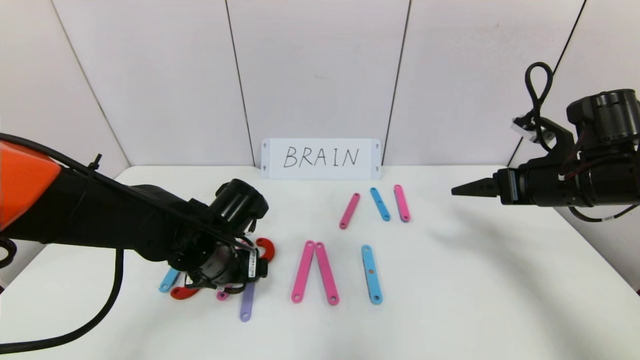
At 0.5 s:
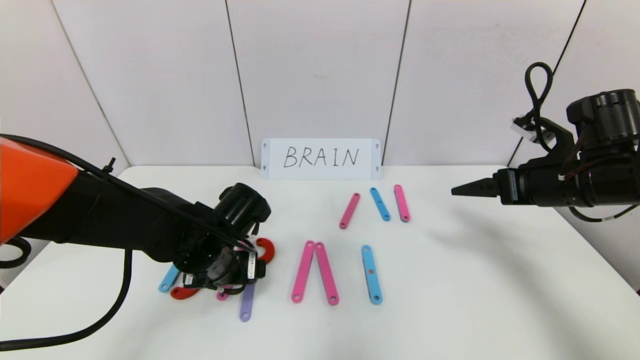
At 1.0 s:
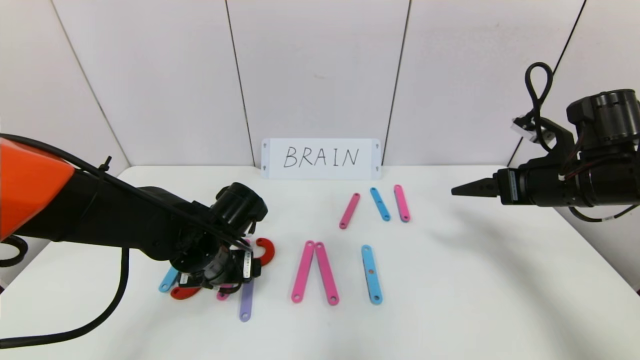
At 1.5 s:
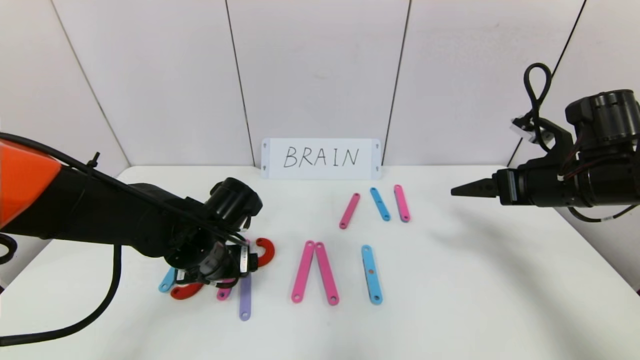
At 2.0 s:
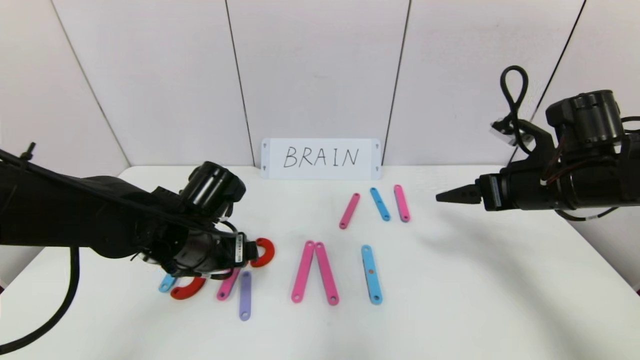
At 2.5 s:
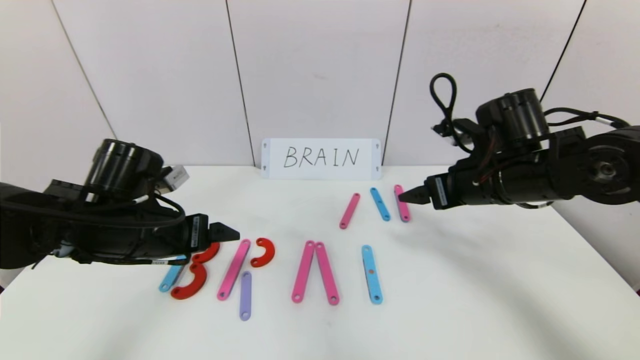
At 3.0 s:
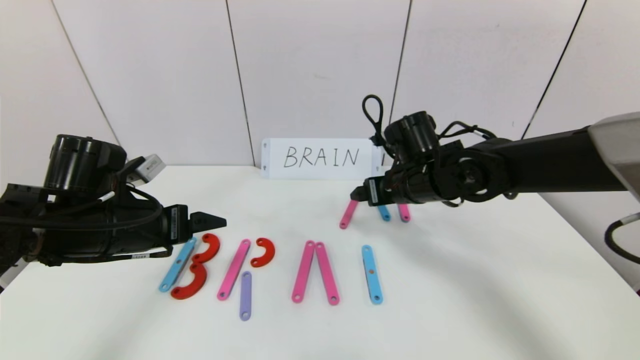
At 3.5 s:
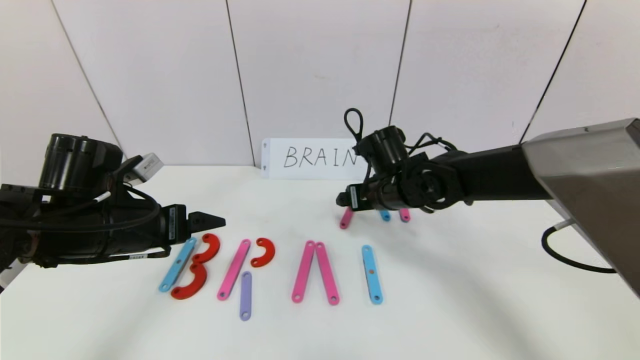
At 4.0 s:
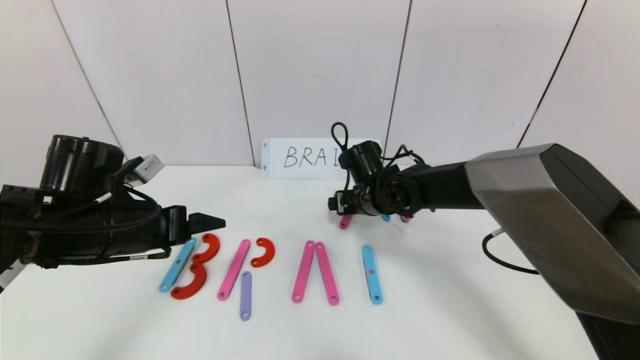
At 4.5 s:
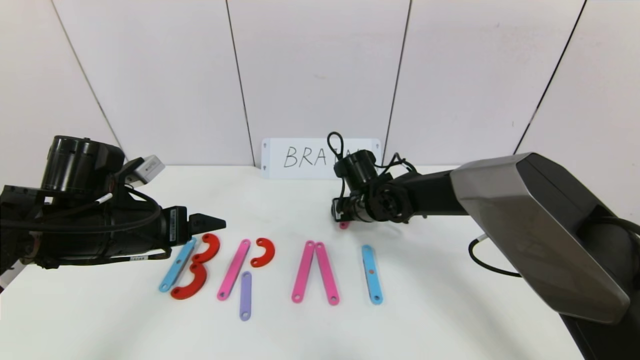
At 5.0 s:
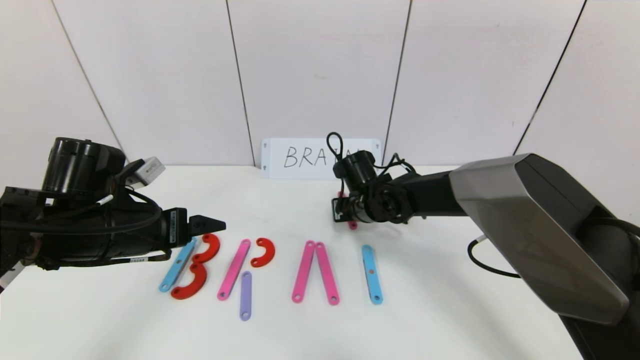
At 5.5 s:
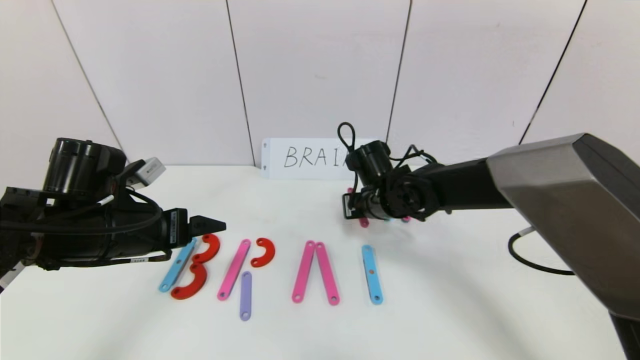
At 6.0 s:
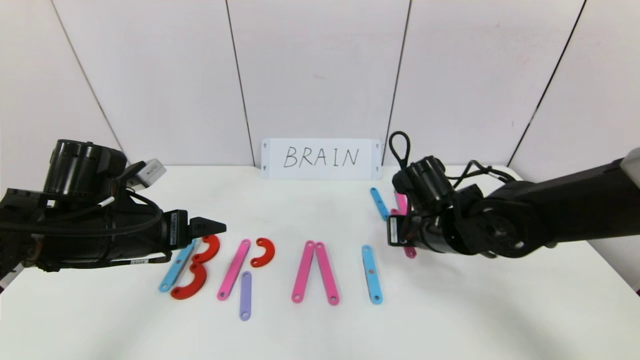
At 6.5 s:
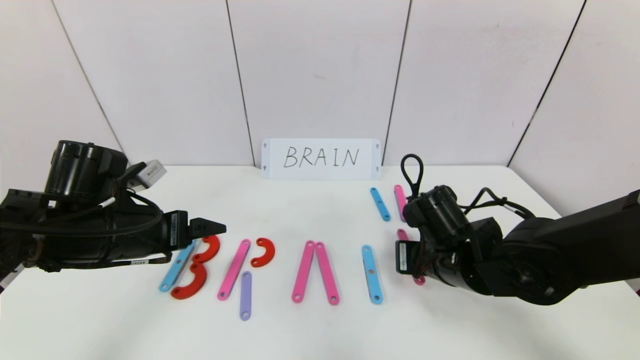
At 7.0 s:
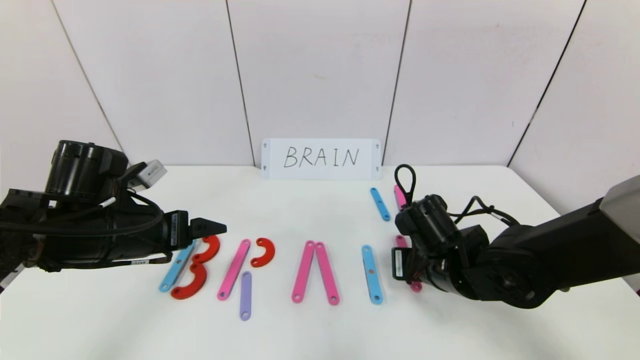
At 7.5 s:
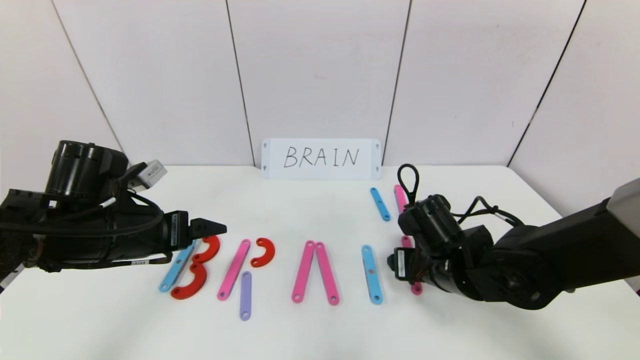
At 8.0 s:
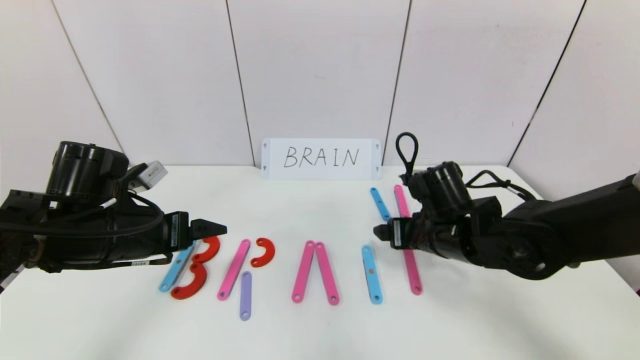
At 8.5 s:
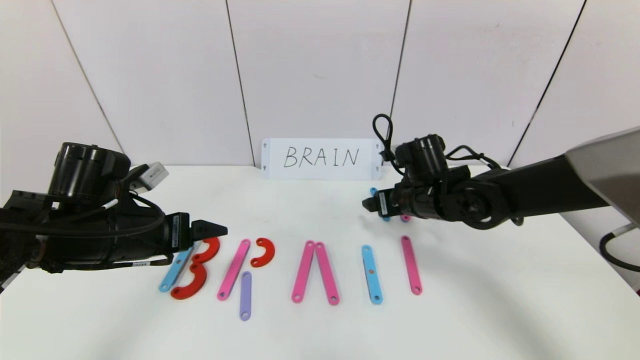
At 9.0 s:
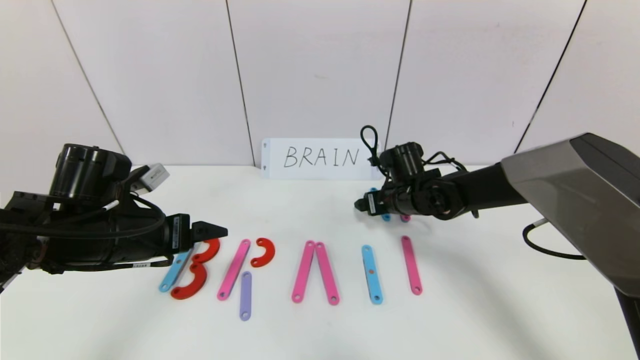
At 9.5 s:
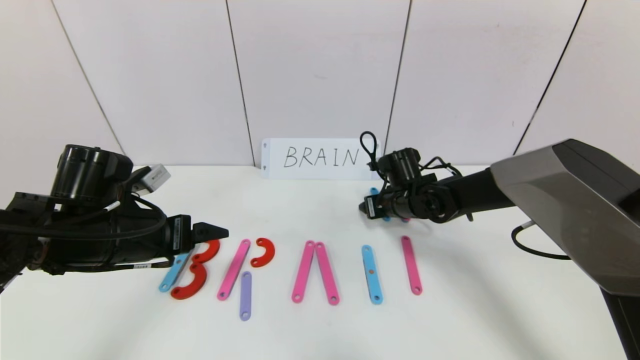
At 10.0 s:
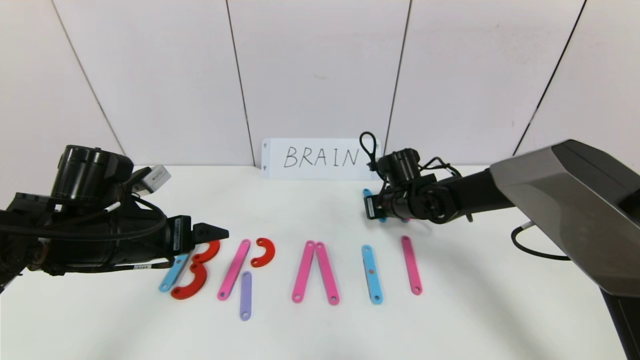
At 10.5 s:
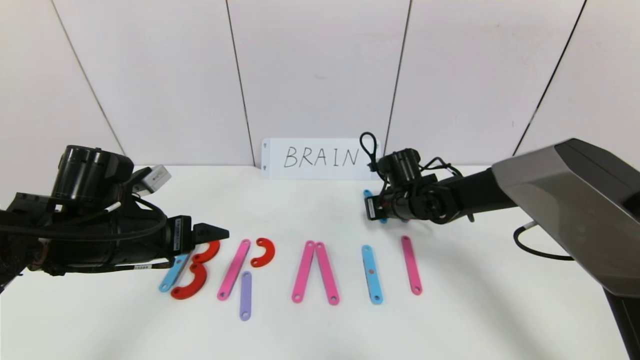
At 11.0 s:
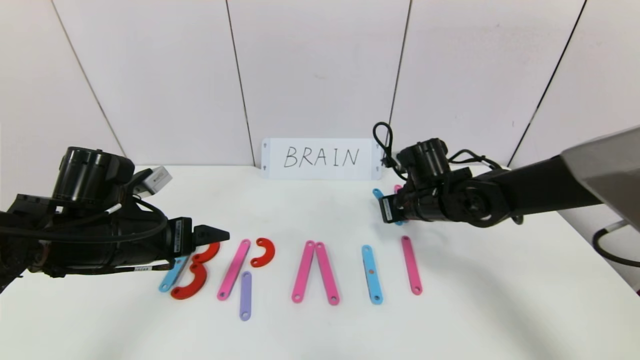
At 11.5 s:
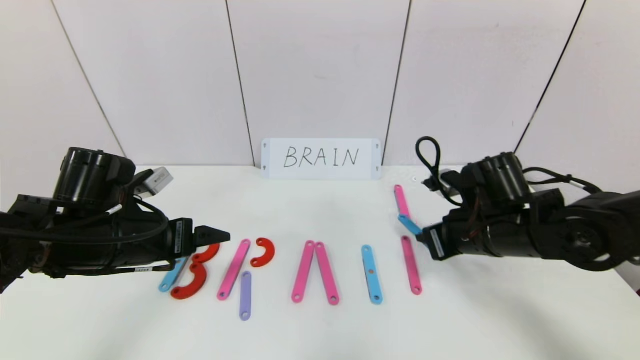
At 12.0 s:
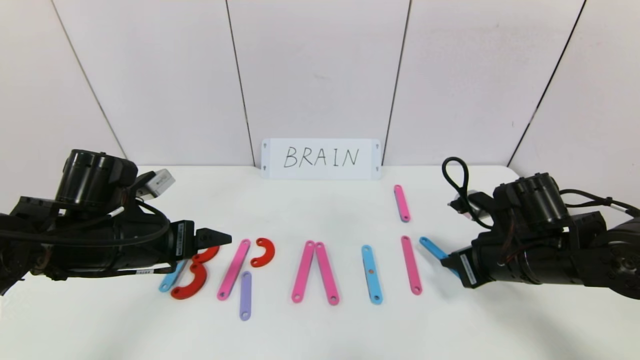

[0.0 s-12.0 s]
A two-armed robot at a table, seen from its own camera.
Task of the whole recording: rearrange the word baai as brain.
0.0 to 2.0 s: The grippers make only small movements.
2.0 to 4.0 s: The left gripper goes roughly 10 cm to the left. Meanwhile the right gripper moves to the left, forward and downward, some 25 cm.
4.0 to 6.0 s: The right gripper travels backward and to the right by about 15 cm, and closes up.
6.0 to 8.0 s: The right gripper opens.
8.0 to 10.0 s: The right gripper travels forward by roughly 10 cm, and closes its fingers.
10.0 to 12.0 s: The right gripper is displaced backward and to the right by roughly 20 cm.

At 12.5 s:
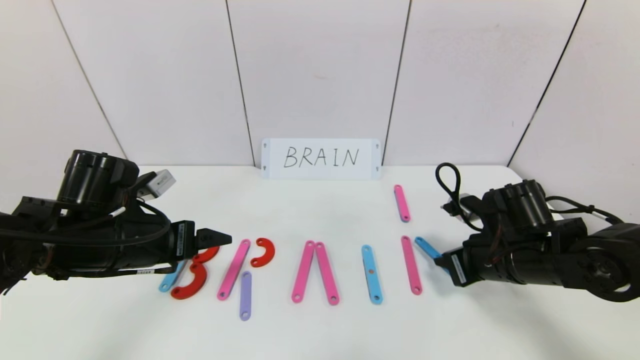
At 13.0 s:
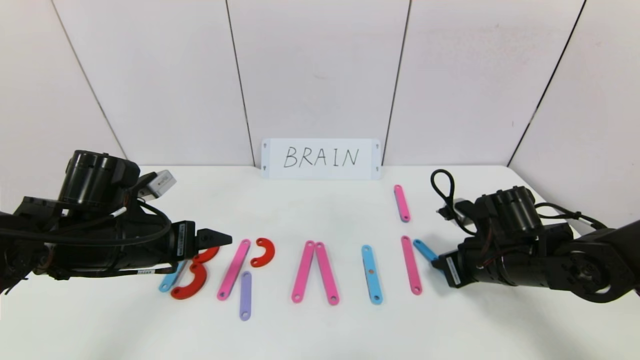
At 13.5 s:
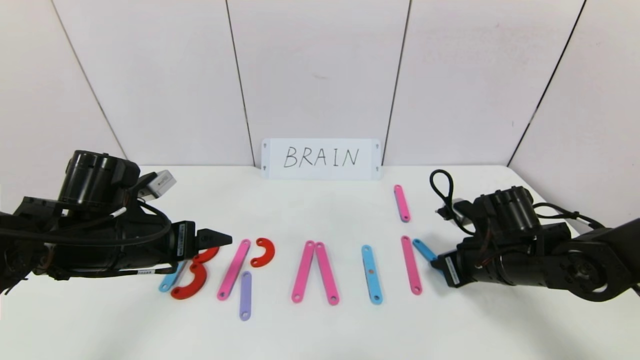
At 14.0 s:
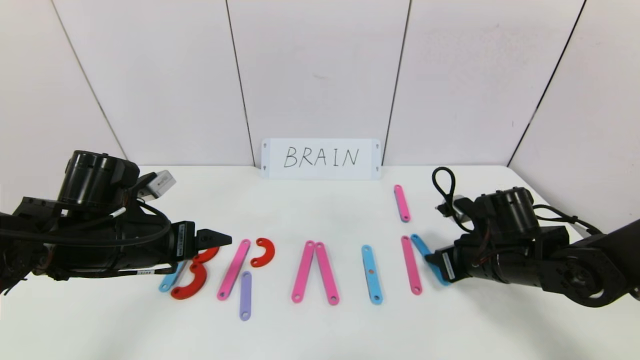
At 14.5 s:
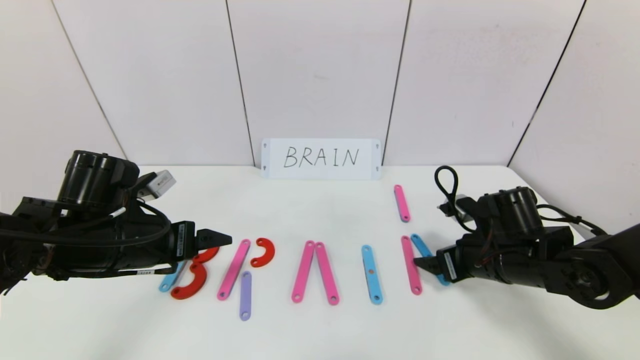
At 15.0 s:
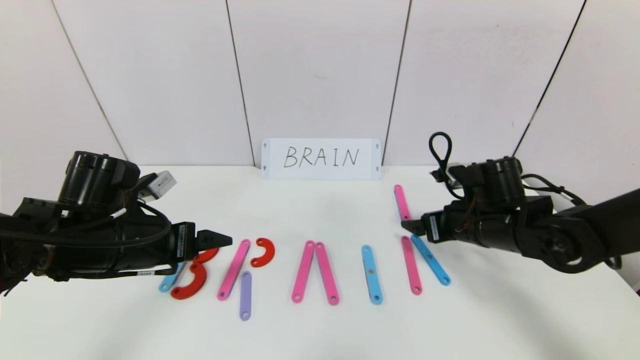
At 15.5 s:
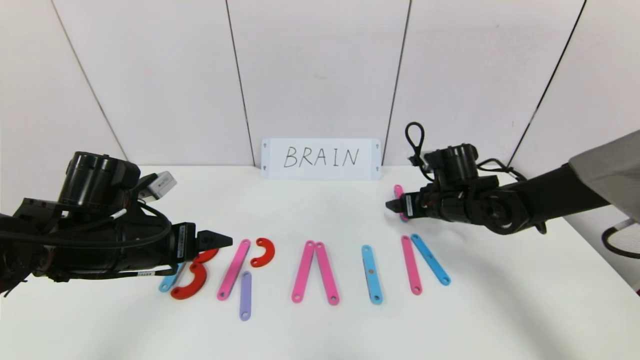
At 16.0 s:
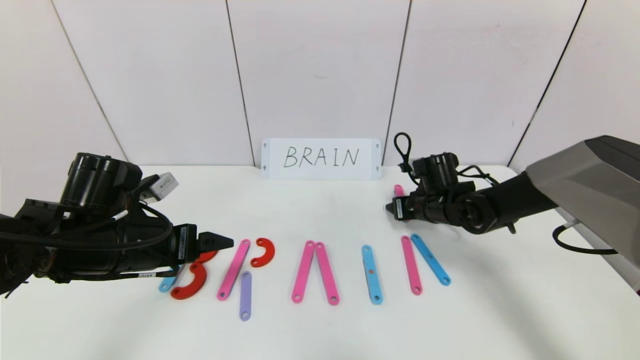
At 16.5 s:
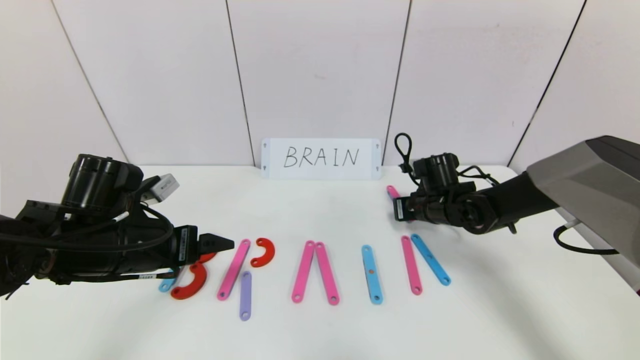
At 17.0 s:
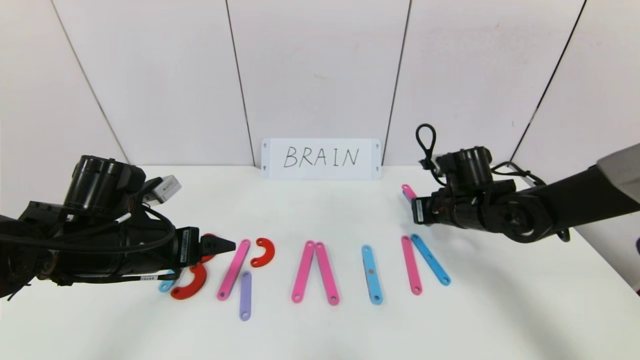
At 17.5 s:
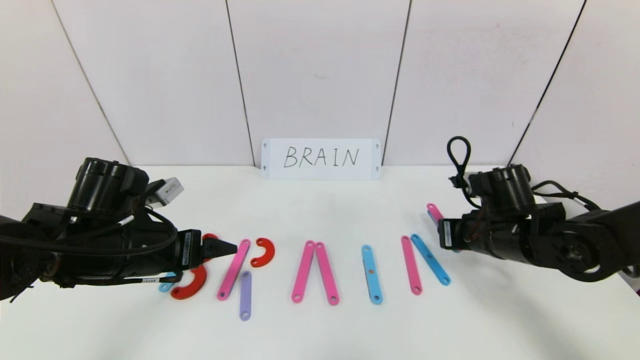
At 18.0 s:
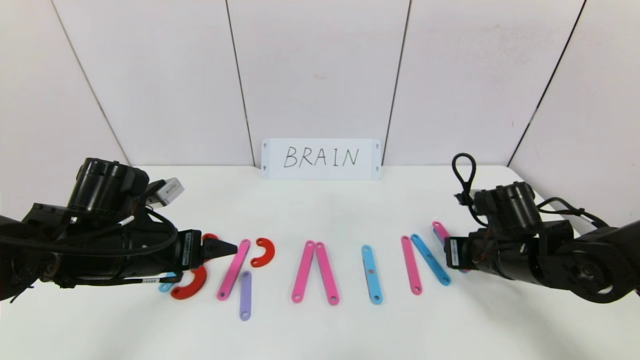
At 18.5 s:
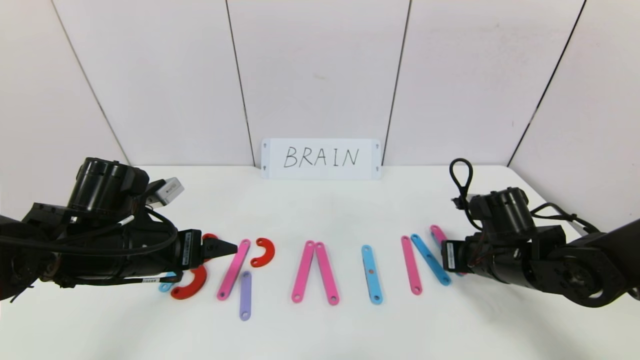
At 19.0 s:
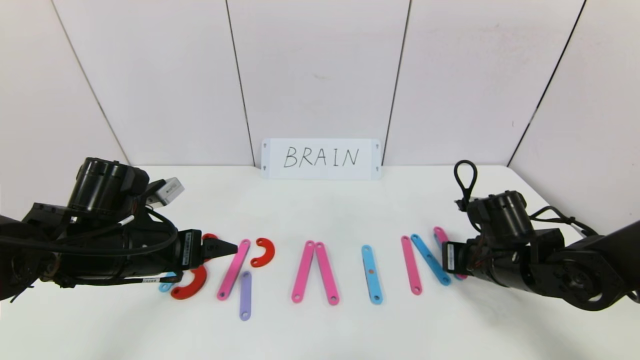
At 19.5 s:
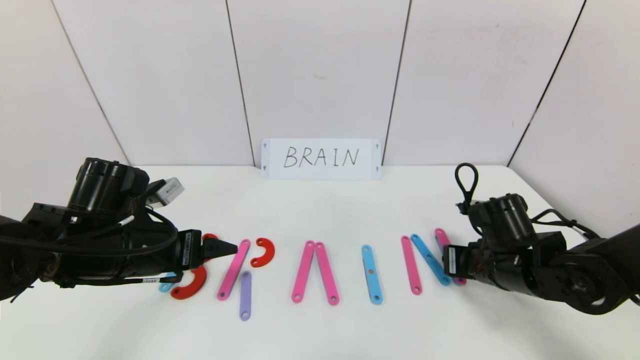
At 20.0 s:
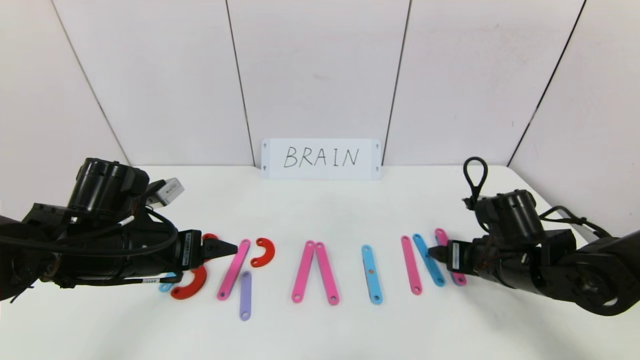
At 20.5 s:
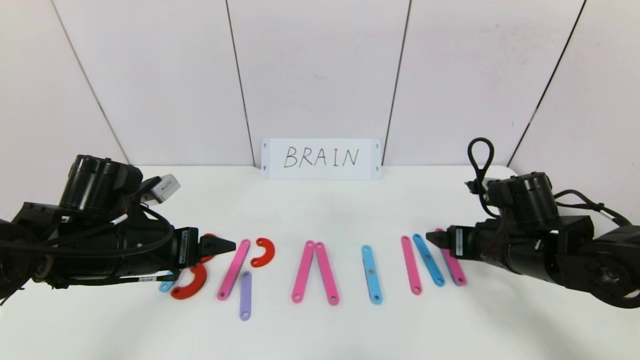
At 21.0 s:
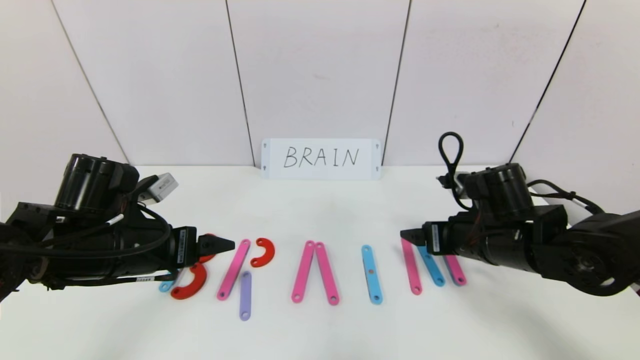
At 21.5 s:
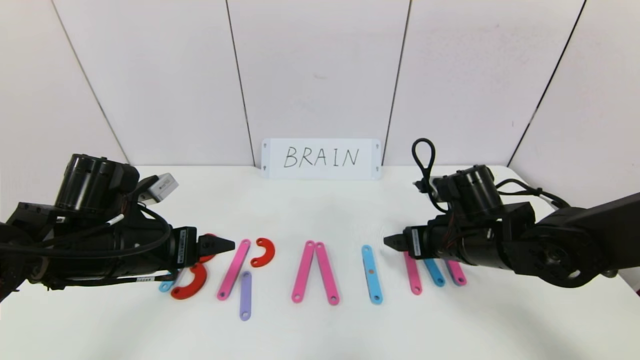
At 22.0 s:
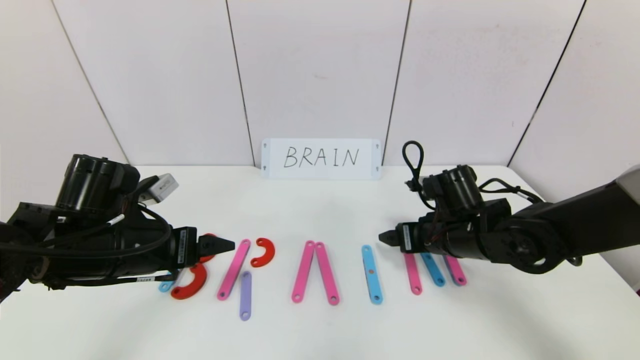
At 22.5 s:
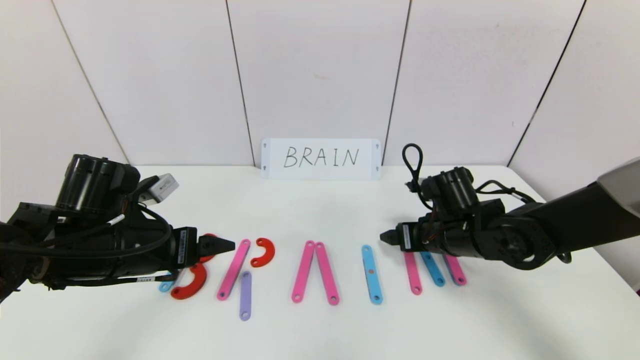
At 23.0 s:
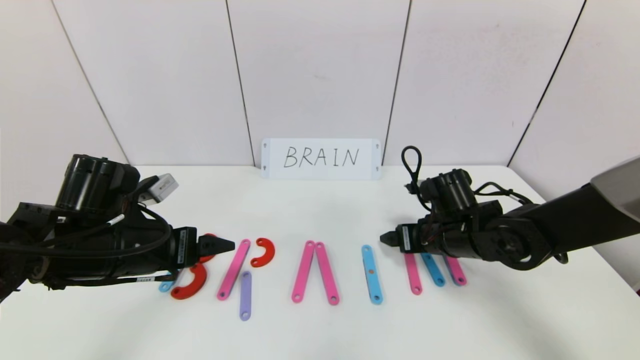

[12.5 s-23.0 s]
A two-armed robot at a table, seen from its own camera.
Task of the whole recording: rearrange the word baai as brain.
12.5 to 14.5 s: The right gripper opens.
14.5 to 16.5 s: The right gripper travels forward by approximately 15 cm, and closes.
16.5 to 19.0 s: The right gripper heads backward, covering about 15 cm.
19.0 to 21.0 s: The right gripper changes place by about 5 cm, and opens up.
21.0 to 23.0 s: The right gripper ends up about 5 cm from where it was.
